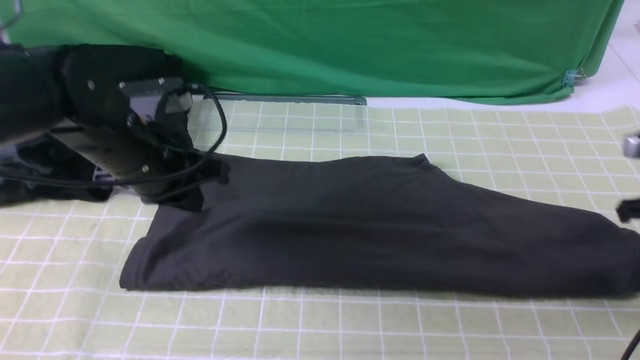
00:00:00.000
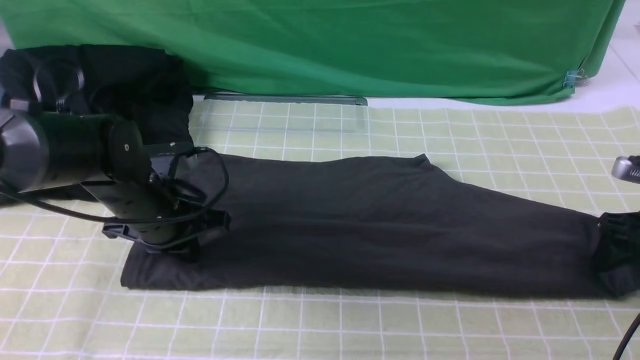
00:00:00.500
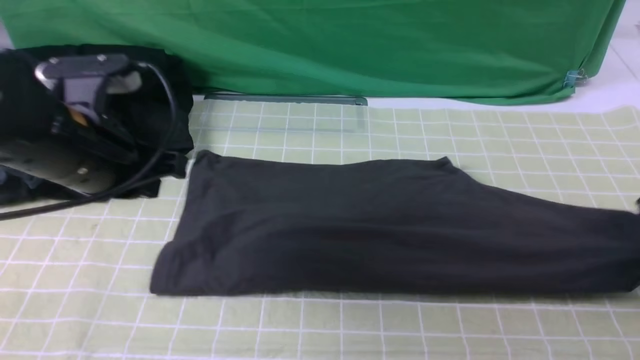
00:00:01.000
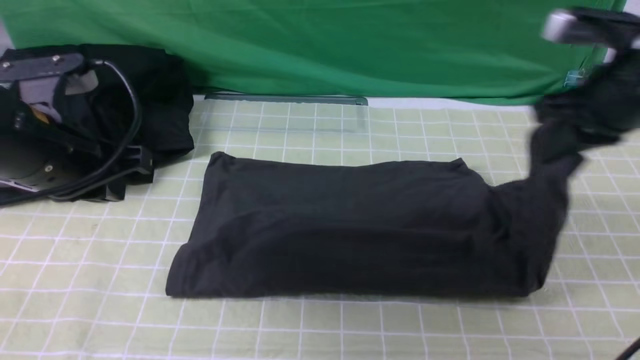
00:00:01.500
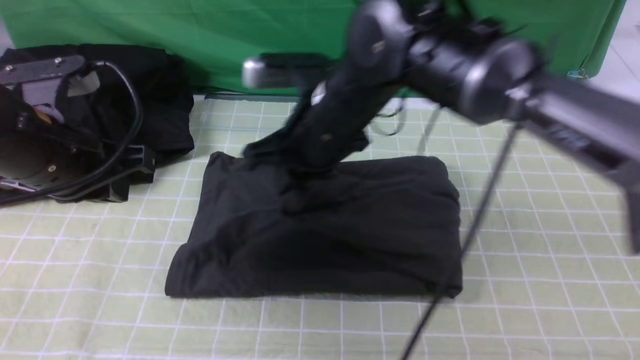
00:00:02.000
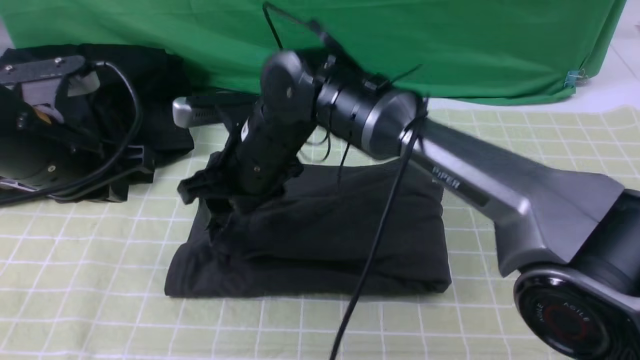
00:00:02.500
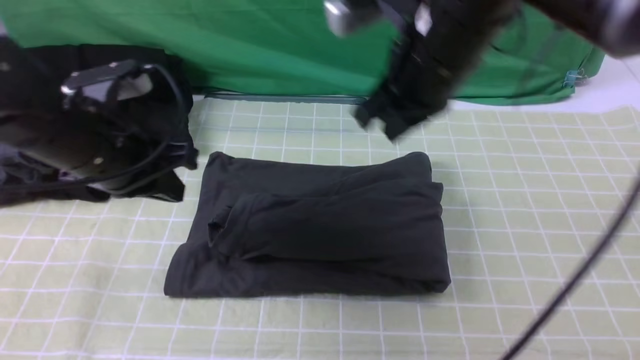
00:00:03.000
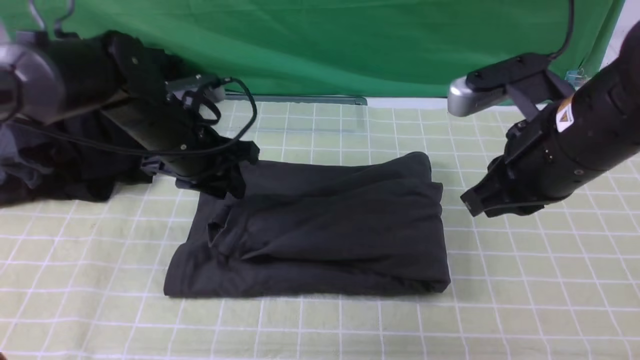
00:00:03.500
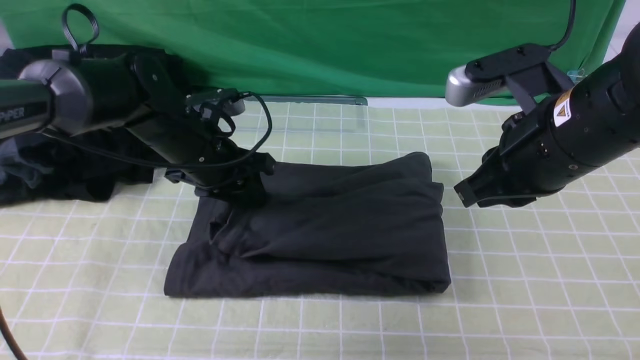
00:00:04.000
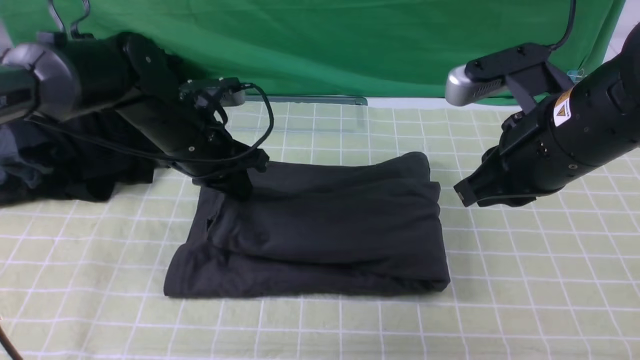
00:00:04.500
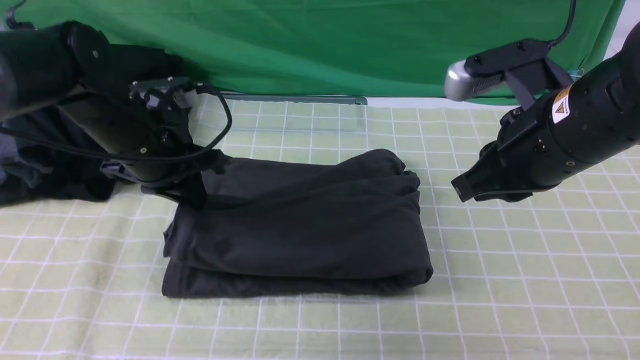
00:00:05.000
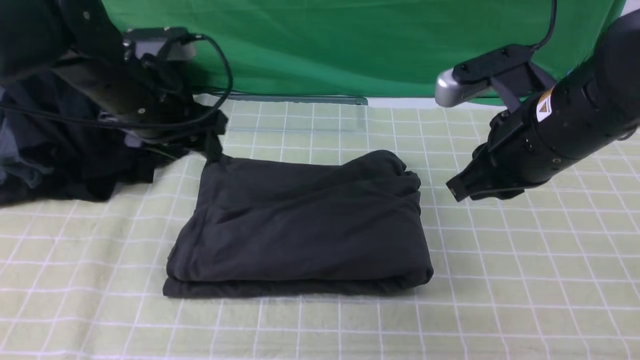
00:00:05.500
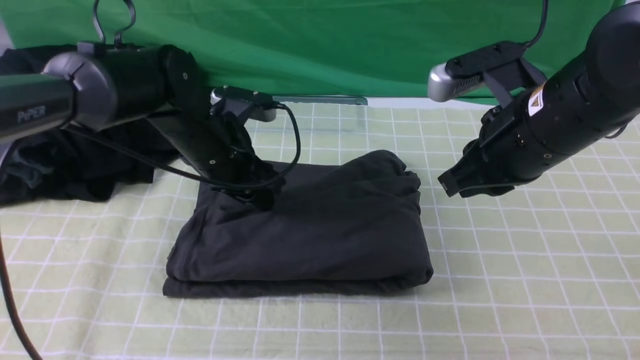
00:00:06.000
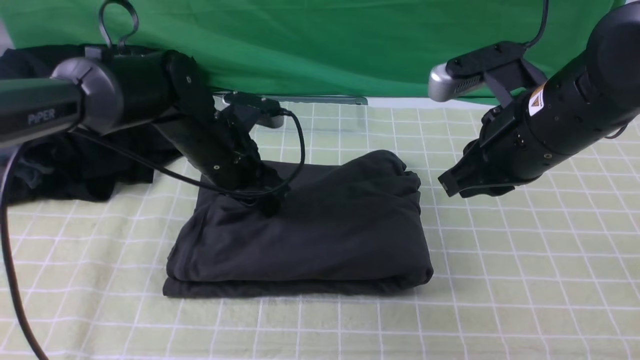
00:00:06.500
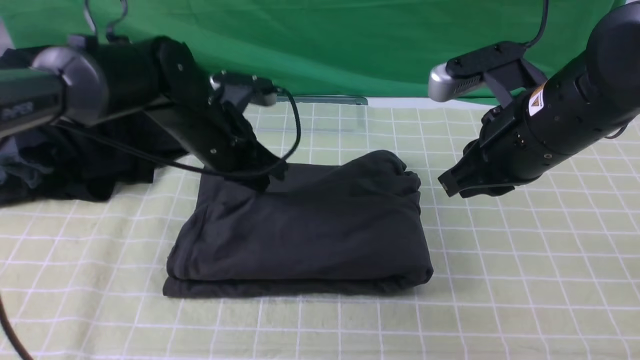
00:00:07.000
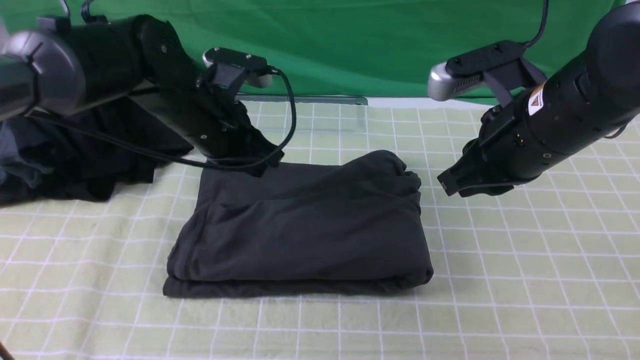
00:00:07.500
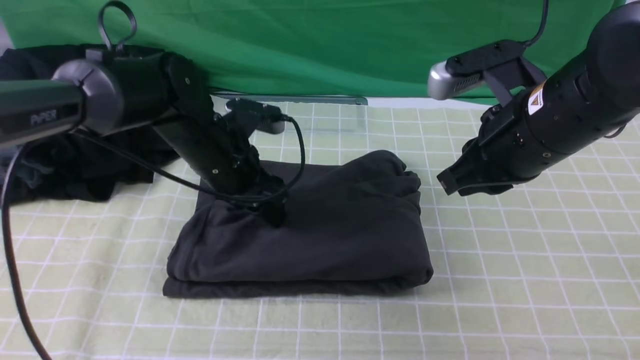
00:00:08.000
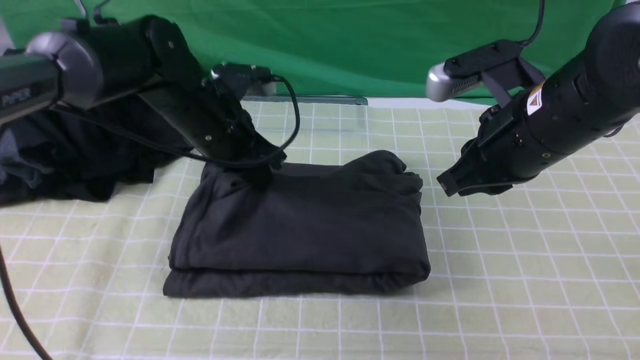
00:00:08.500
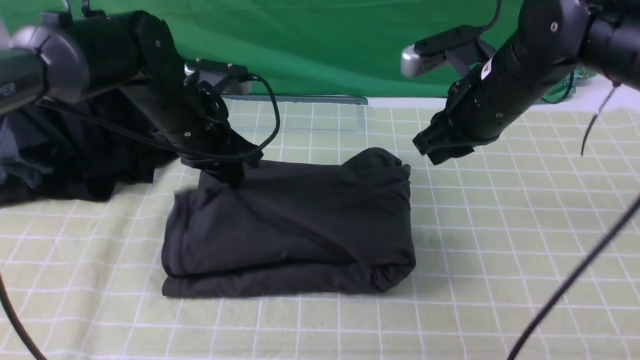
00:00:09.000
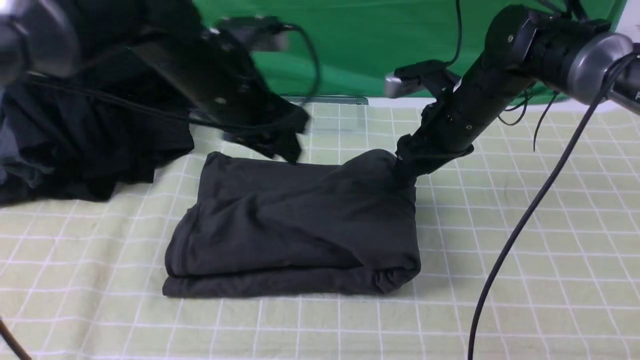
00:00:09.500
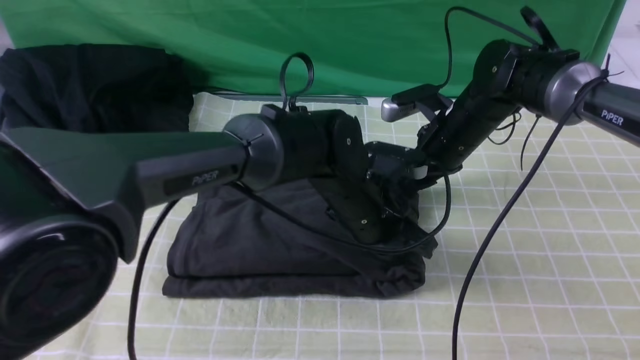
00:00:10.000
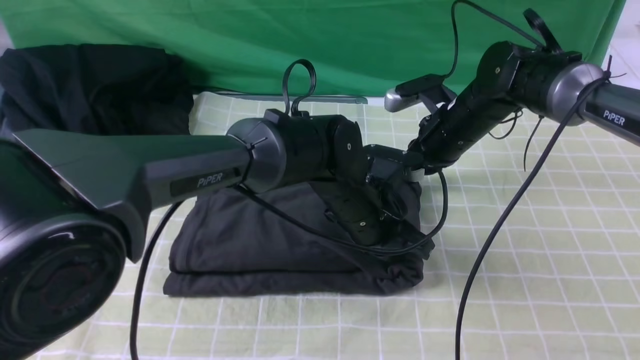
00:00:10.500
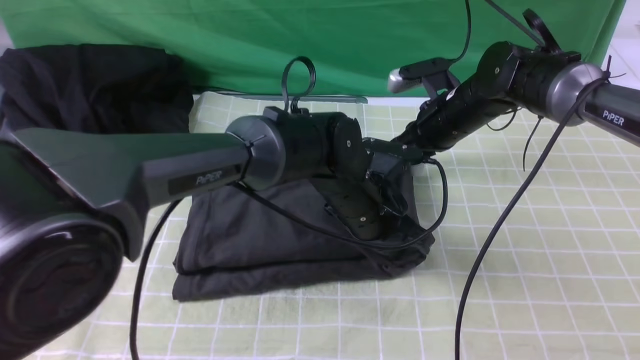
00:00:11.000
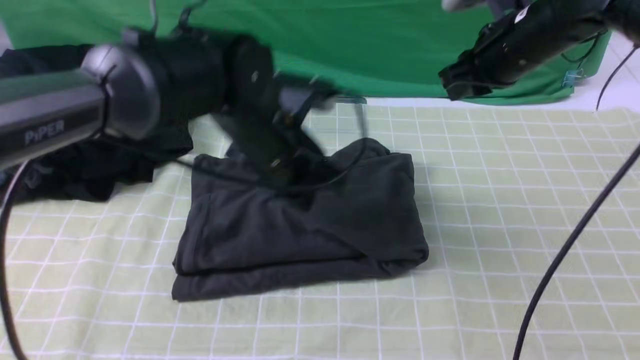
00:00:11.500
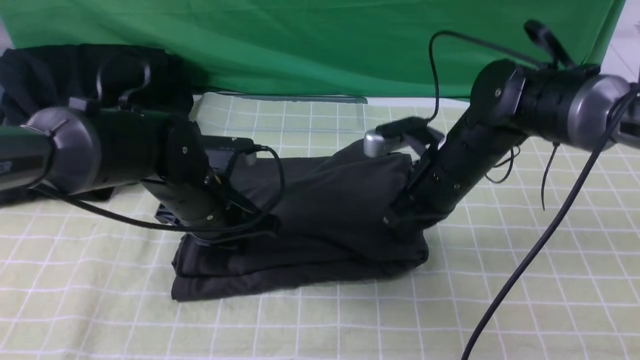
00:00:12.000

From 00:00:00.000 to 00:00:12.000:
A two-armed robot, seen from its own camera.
Step, from 00:00:01.000 to 00:00:02.500: use the right arm to drag the right edge of the fabric to the left and folds it over the left edge.
From 00:00:00.000 to 00:00:02.000: The right gripper travels to the left by approximately 40 cm, and closes up; the left gripper is displaced upward and backward by roughly 10 cm.
From 00:00:02.000 to 00:00:04.000: The left gripper travels forward, downward and to the right by approximately 15 cm, and opens up, while the right gripper goes roughly 20 cm to the right and backward, and opens and closes again.
From 00:00:04.000 to 00:00:06.000: The left gripper closes and opens again.
From 00:00:06.000 to 00:00:08.000: The left gripper closes, then opens again.
From 00:00:08.000 to 00:00:10.000: The right gripper heads forward and downward, covering approximately 20 cm, and opens up. The left gripper goes roughly 15 cm to the right, and closes up.
From 00:00:10.000 to 00:00:12.000: The left gripper goes about 15 cm to the left. The right gripper heads backward, covering about 10 cm, and closes its fingers.

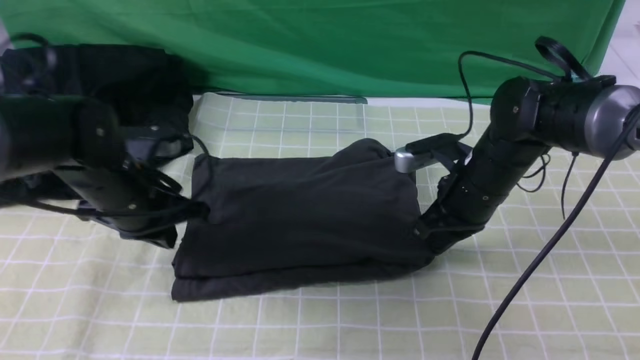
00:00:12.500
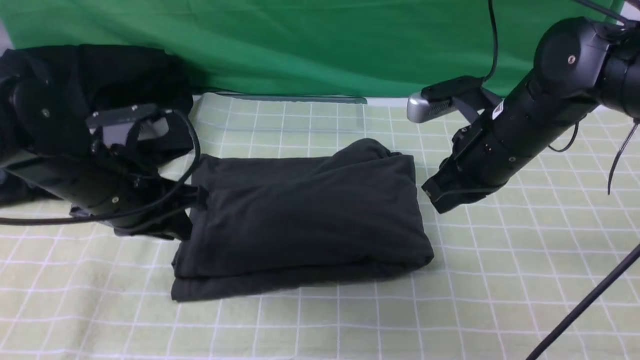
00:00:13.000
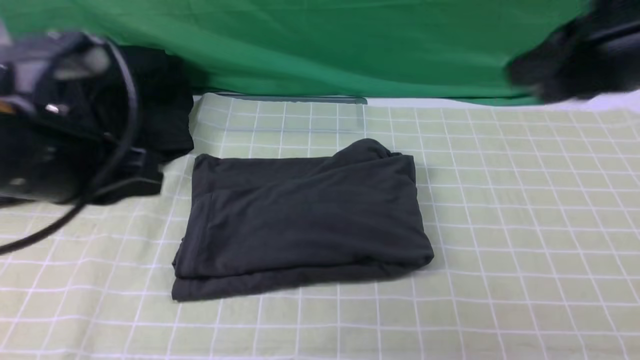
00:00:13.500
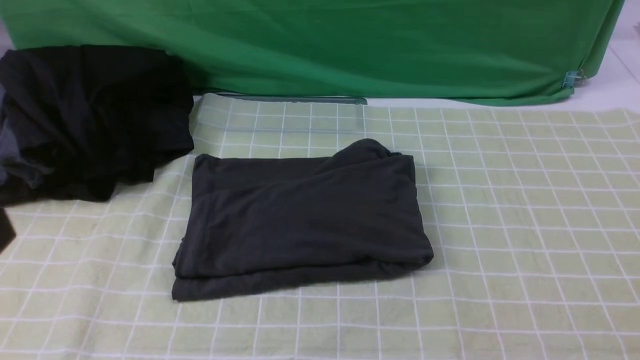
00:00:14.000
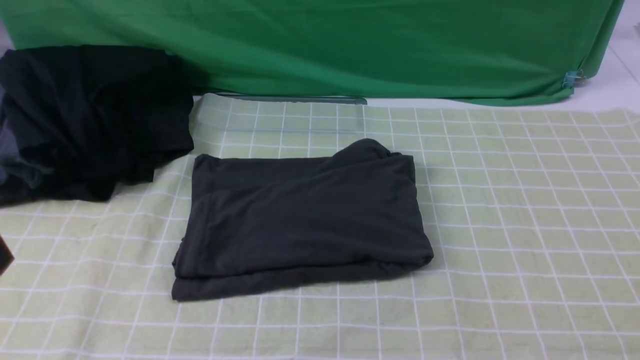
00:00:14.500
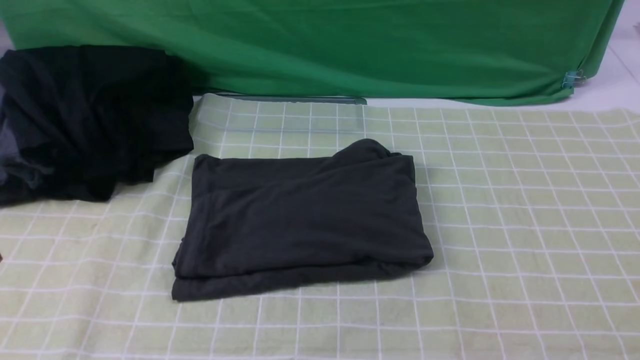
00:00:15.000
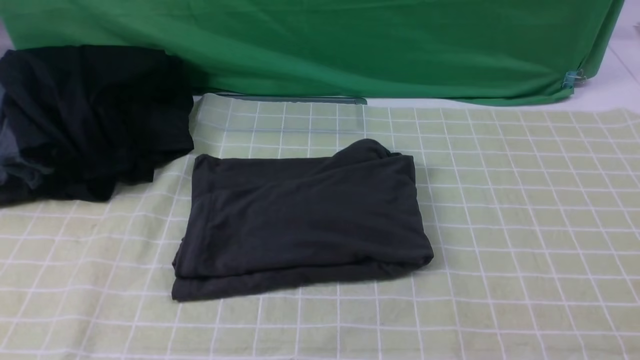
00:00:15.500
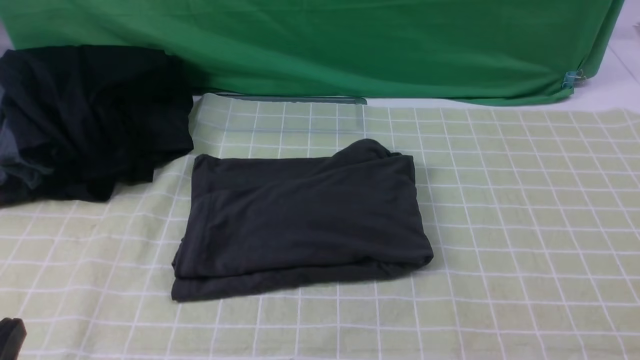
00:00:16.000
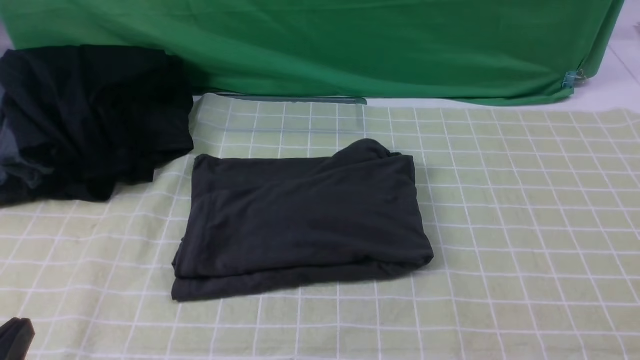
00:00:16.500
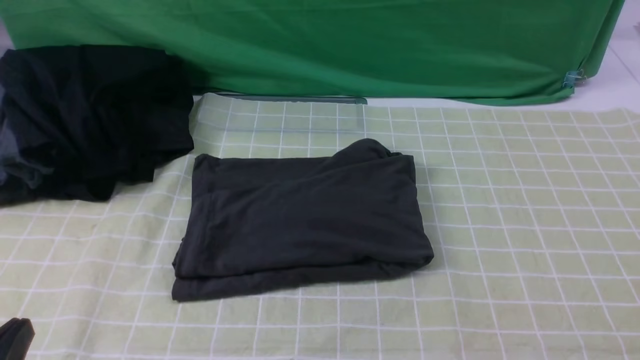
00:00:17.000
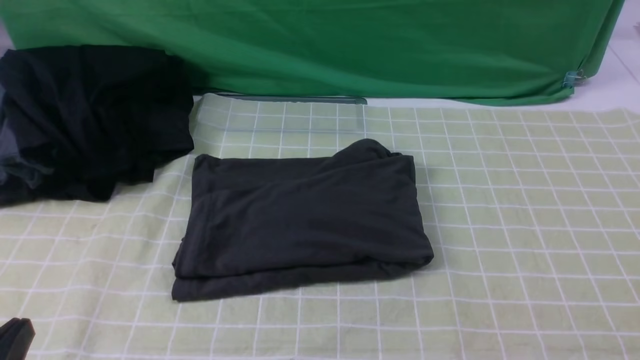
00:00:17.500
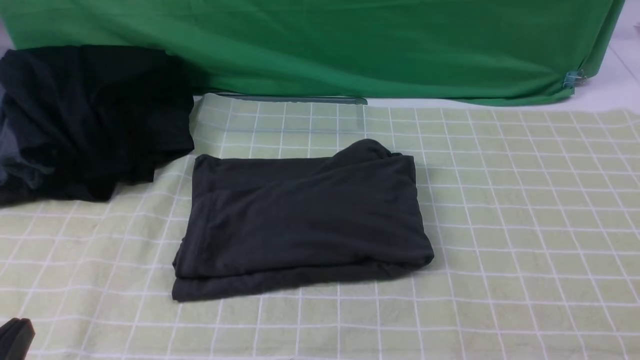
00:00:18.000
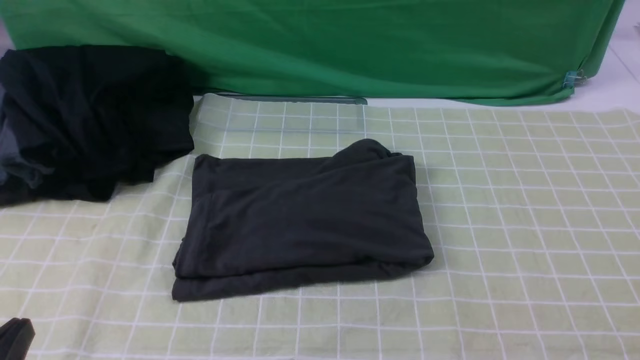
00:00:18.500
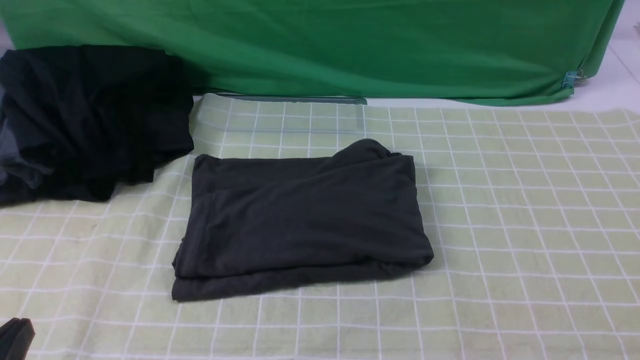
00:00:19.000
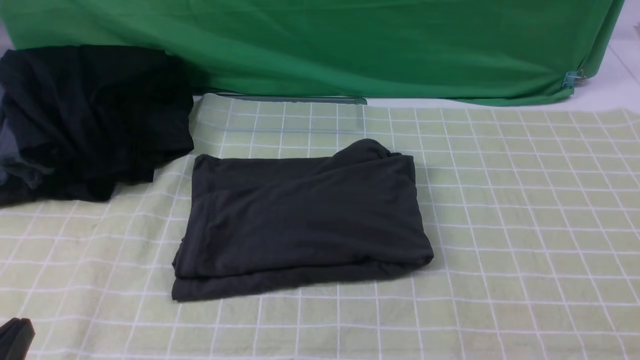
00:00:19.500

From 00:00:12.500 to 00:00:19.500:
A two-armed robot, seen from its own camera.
From 00:00:12.500 to 00:00:14.500: The right gripper shifts some 40 cm backward, to the right and upward; the left gripper travels backward and upward by roughly 30 cm.

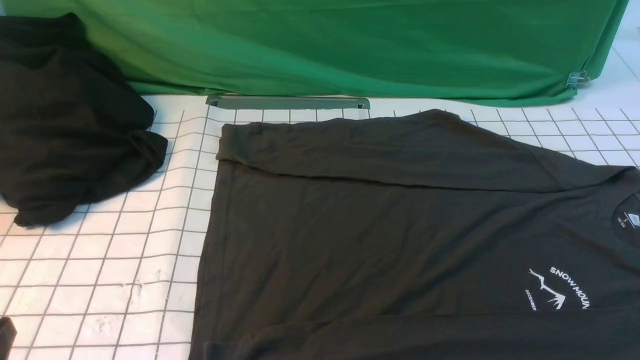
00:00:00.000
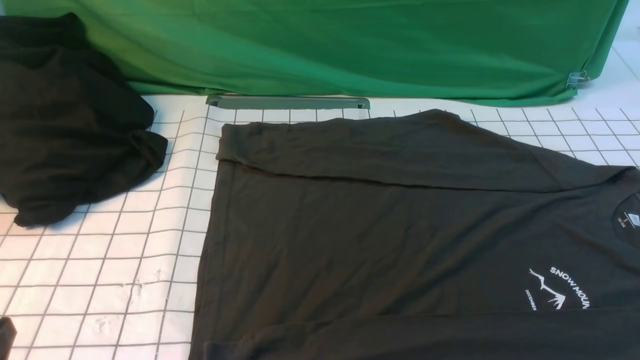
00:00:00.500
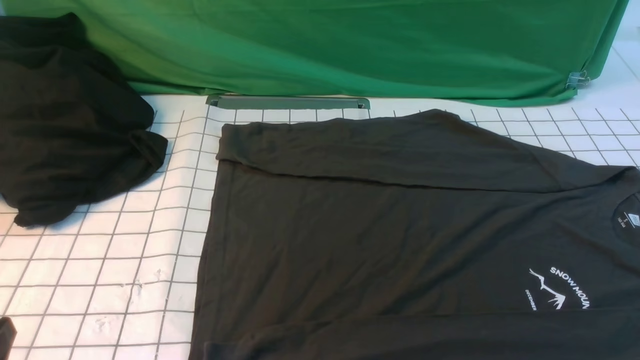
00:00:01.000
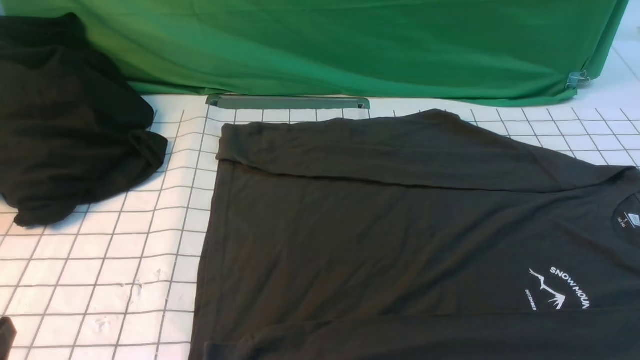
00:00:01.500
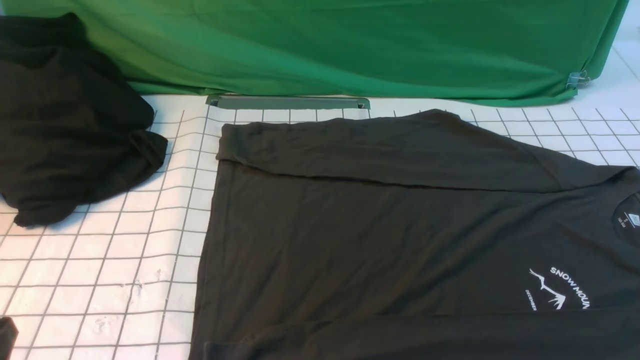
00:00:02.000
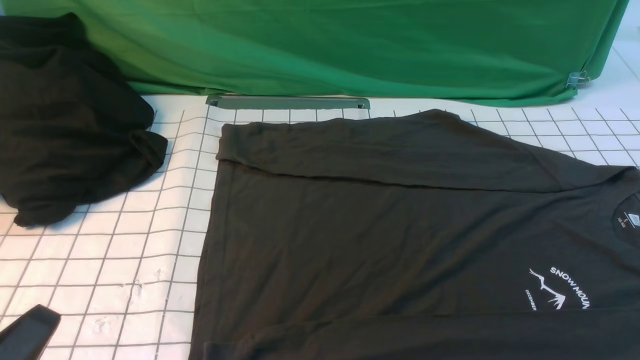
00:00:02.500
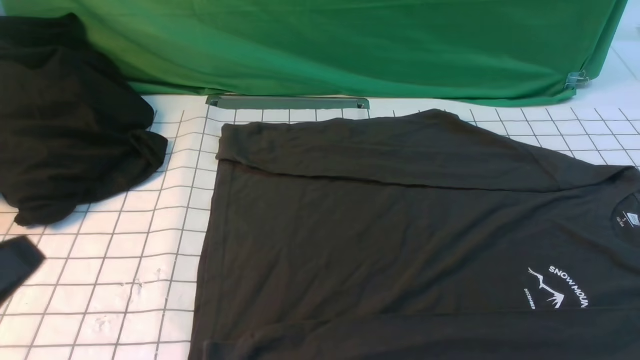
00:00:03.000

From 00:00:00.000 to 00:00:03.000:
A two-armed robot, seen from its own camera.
From 00:00:00.000 to 00:00:01.500: Both grippers stay about where they are.
From 00:00:01.500 to 00:00:03.000: The left gripper heads upward, covering some 10 cm.
